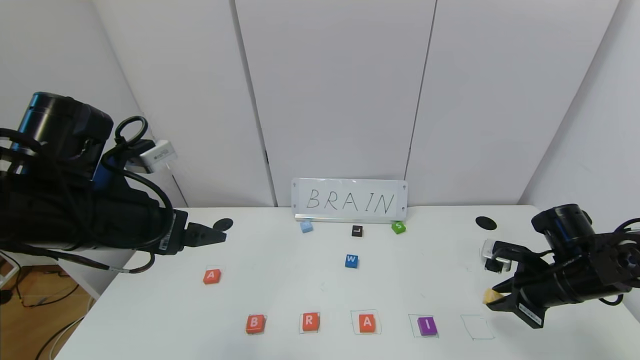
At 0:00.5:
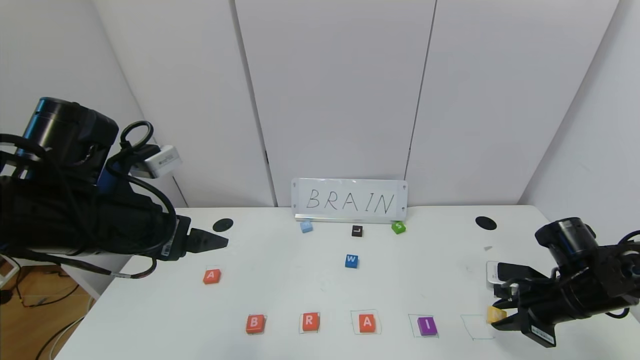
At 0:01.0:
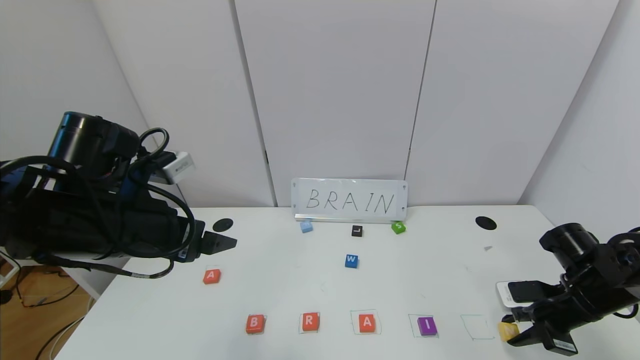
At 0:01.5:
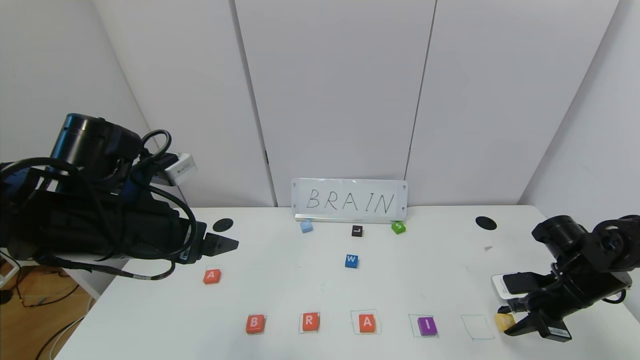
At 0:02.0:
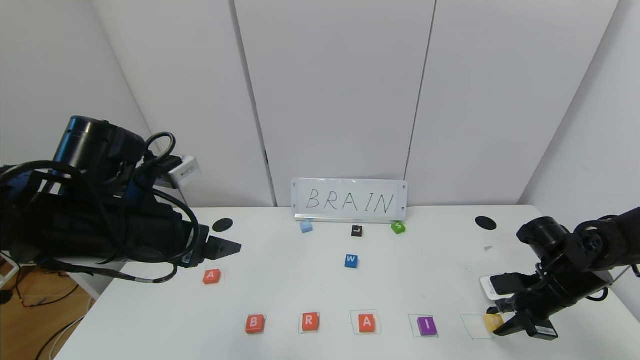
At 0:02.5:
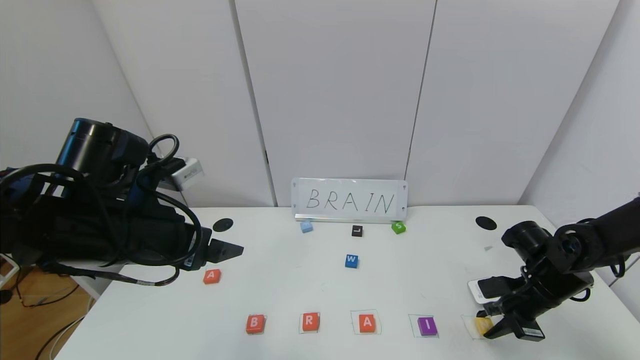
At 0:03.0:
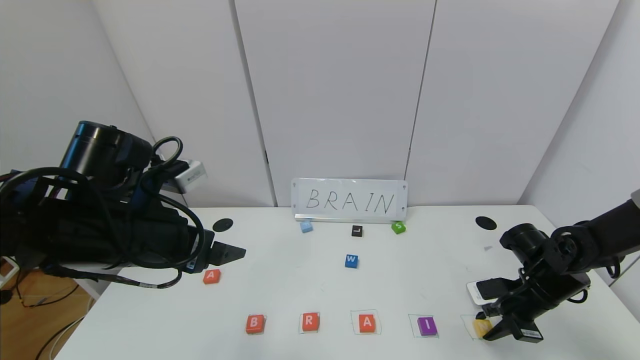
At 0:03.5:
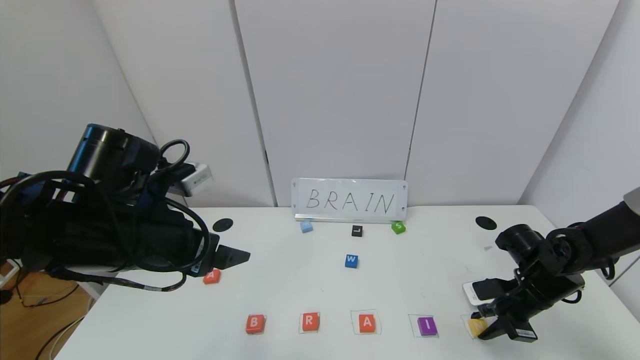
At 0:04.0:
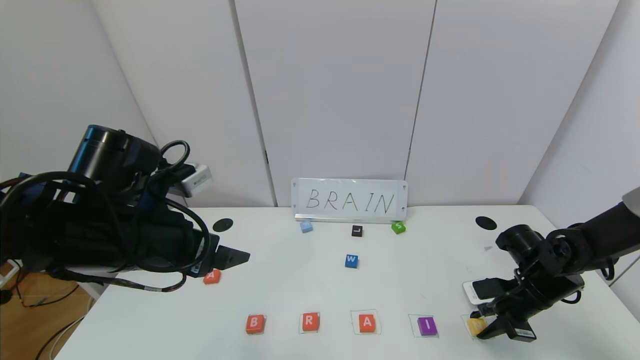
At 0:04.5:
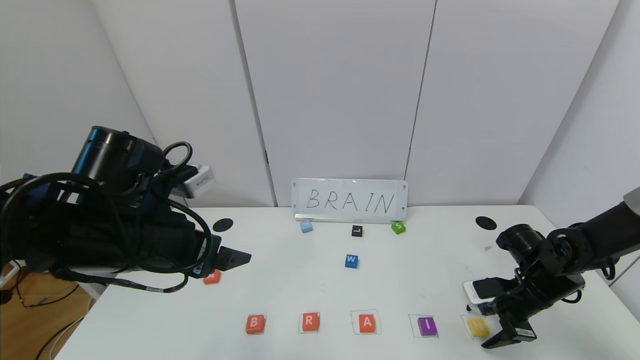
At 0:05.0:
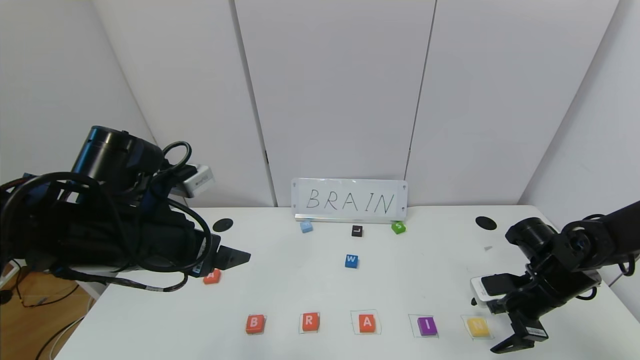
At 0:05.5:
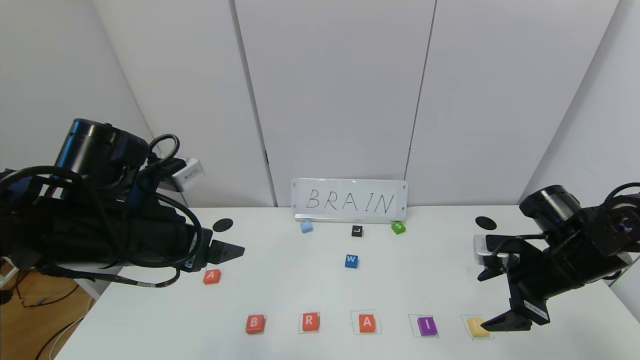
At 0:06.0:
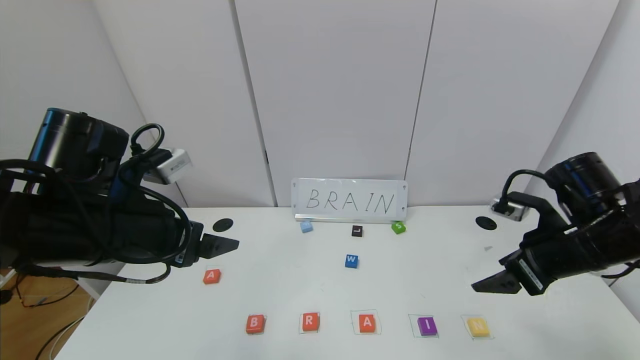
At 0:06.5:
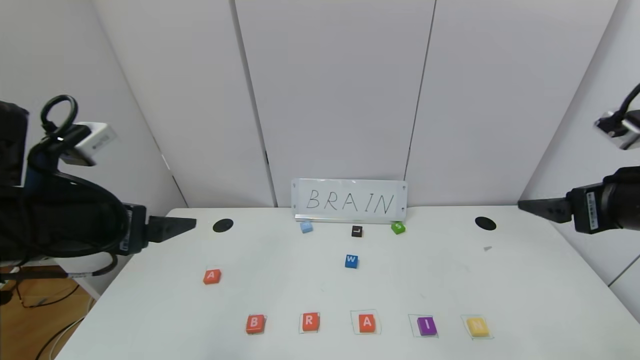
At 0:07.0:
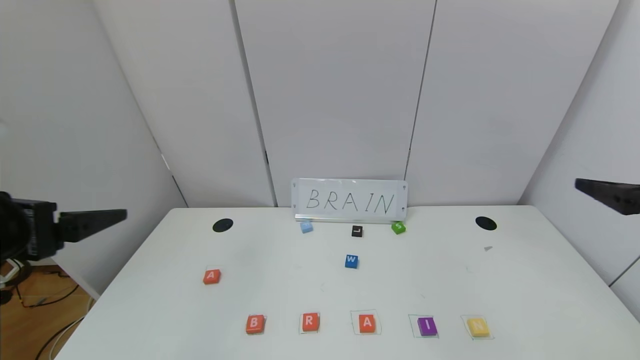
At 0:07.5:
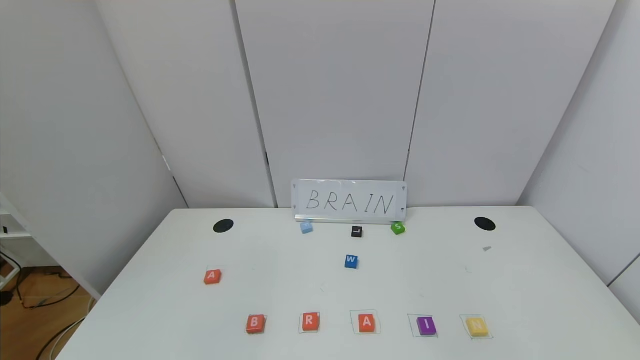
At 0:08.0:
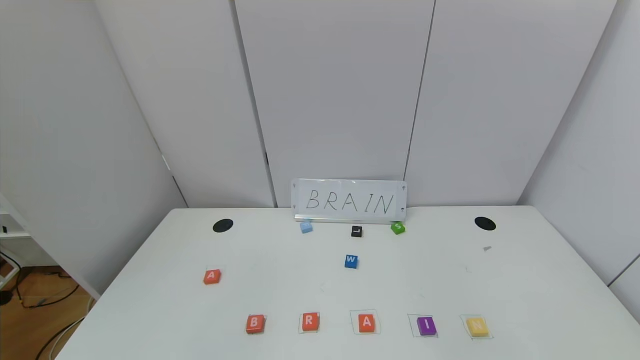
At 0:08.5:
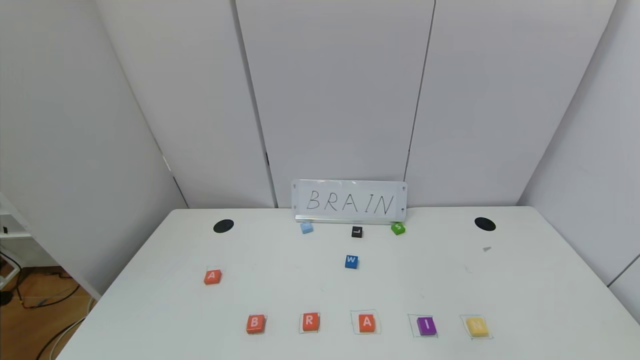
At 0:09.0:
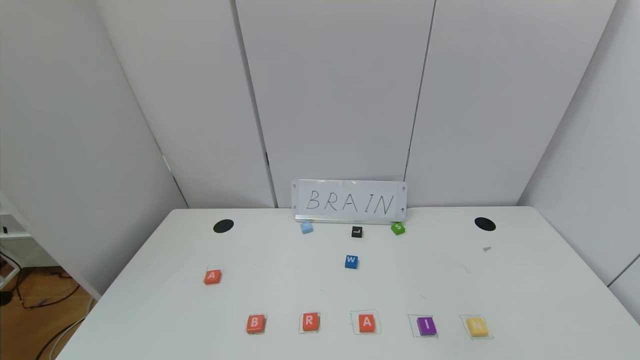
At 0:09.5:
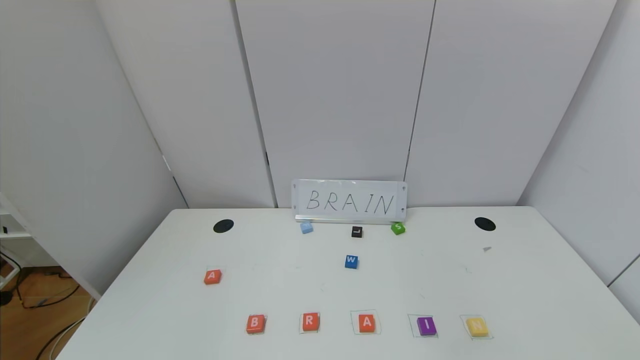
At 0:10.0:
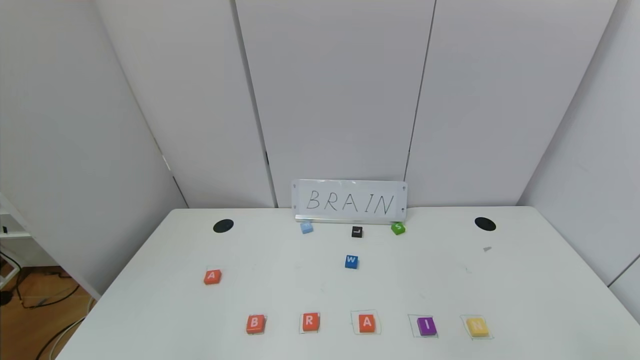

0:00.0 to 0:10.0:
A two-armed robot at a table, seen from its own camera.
Task of the whole recording: use the gripper to find blocks with the letters b, a, a, and i on the table and arrange them into BAAI, then find r and N and turn the arranged baai into brian.
Step, 0:00.0 to 0:04.5: Place the block N in the fifth location.
0:02.0 to 0:04.0: There are only small adjustments of the grippers.
0:04.0 to 0:06.0: The right gripper is displaced upward by approximately 15 cm, and opens.
0:06.0 to 0:08.0: The left gripper goes approximately 25 cm backward. Meanwhile the right gripper heads backward and upward, covering approximately 30 cm.
